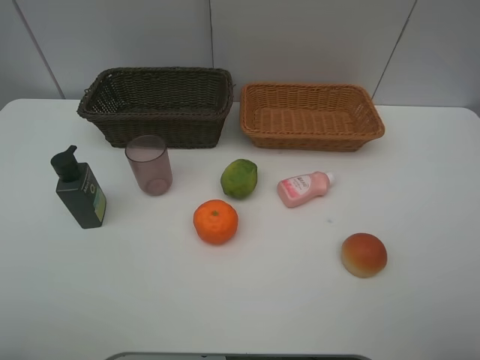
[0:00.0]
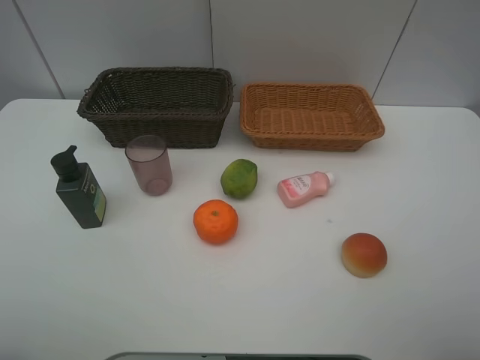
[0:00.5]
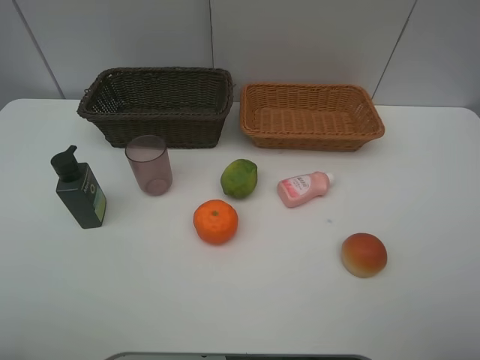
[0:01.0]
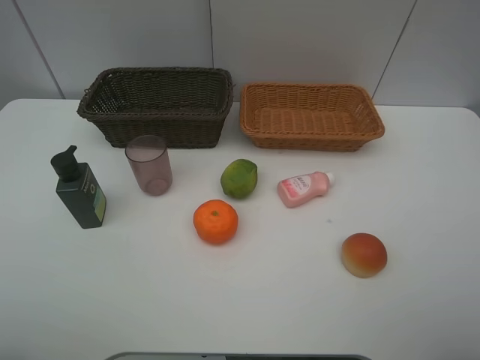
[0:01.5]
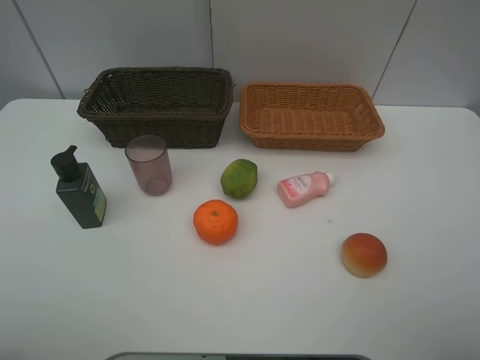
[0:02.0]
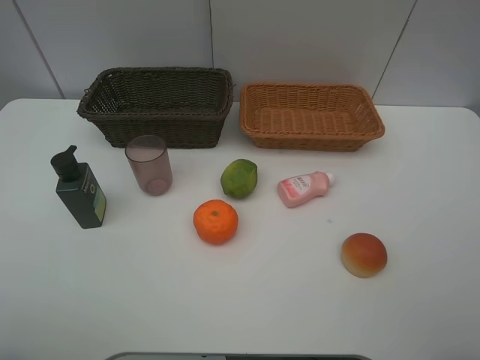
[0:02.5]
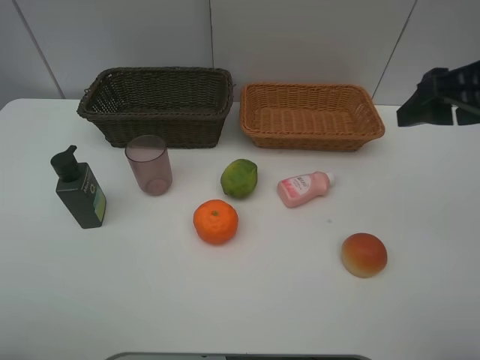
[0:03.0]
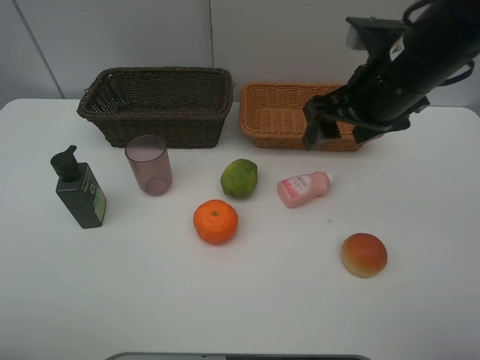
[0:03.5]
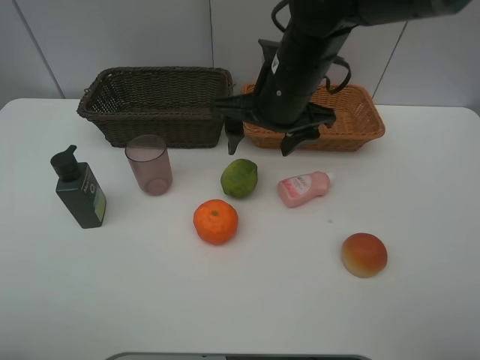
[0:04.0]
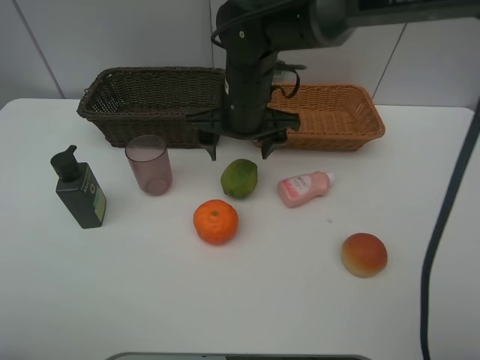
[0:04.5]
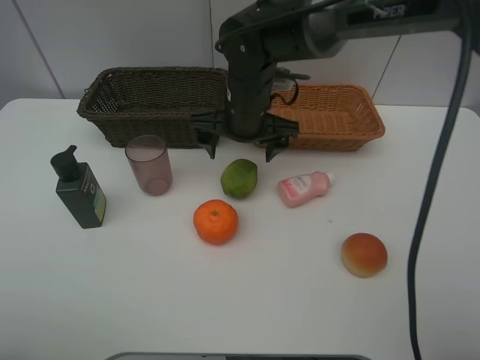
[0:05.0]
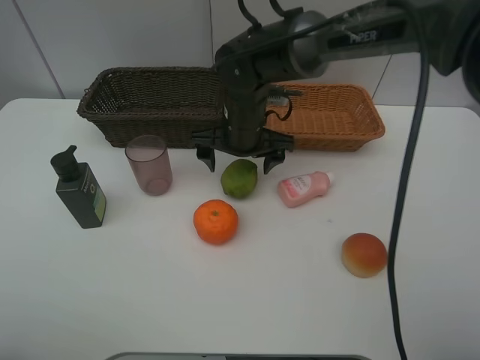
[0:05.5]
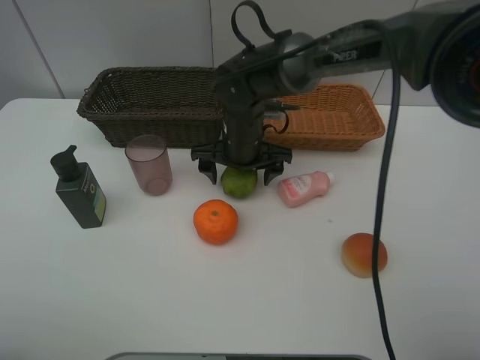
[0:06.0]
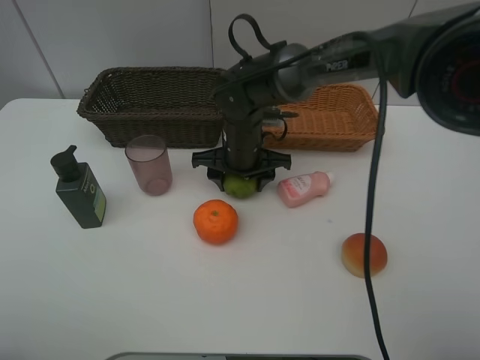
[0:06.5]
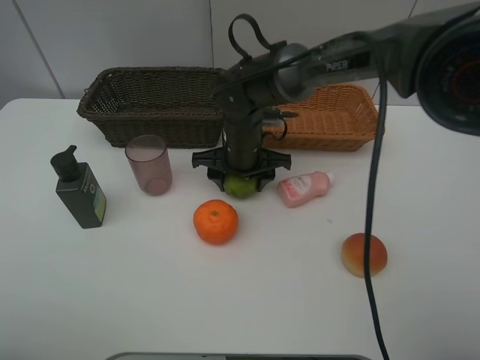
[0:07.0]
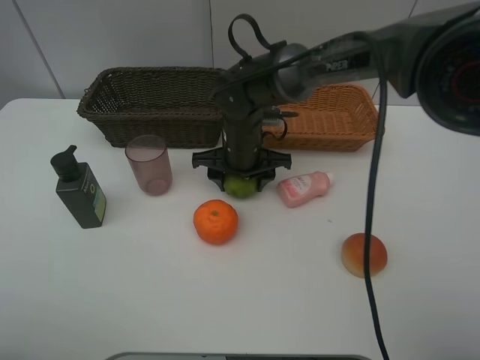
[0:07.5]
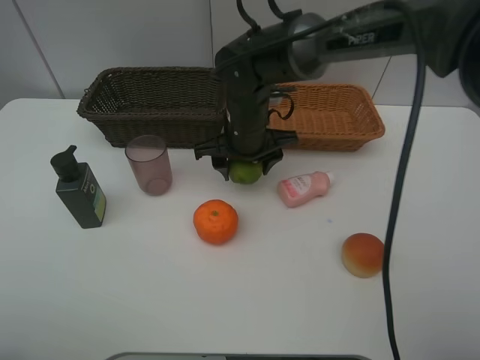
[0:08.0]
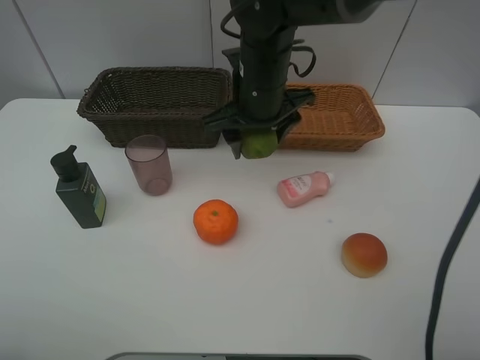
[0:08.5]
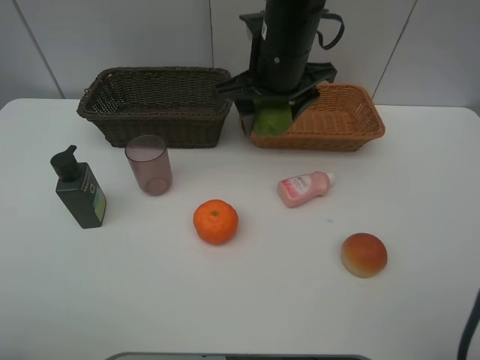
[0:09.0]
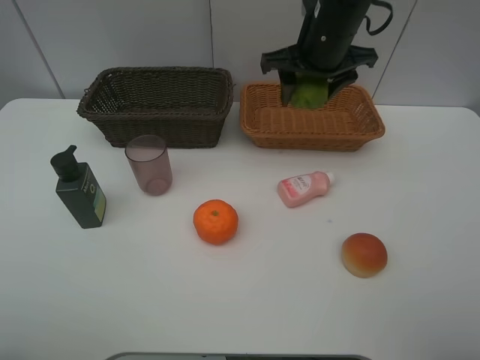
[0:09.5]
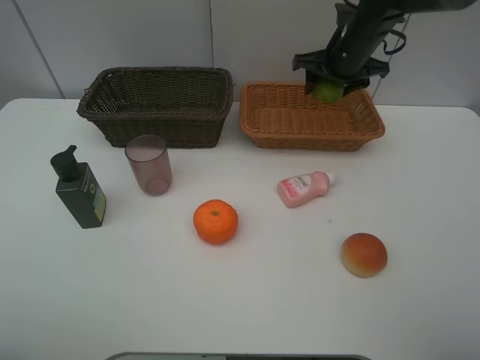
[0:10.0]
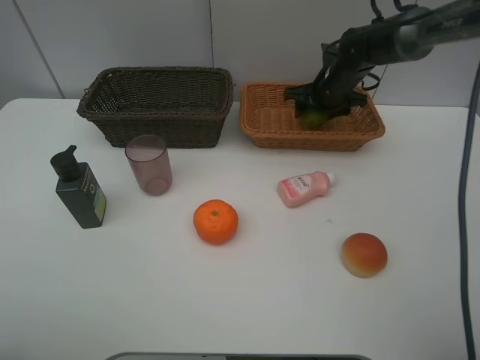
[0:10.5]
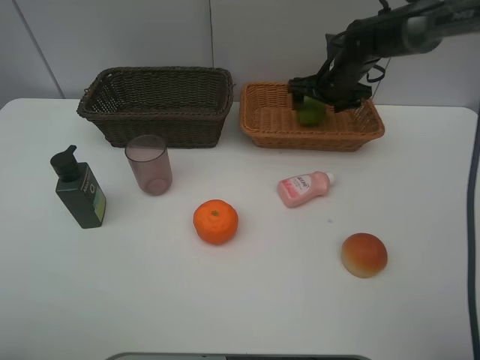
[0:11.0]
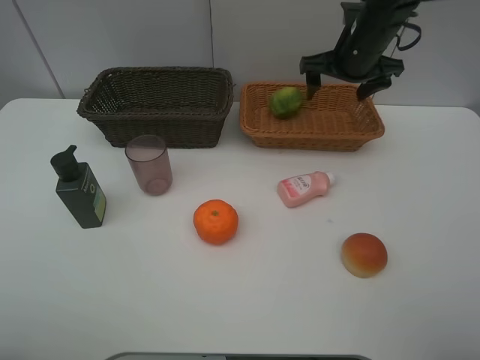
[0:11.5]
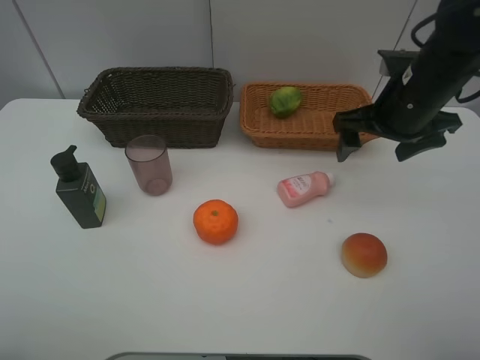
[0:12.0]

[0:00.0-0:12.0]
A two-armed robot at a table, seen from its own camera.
Task of the whole recording: place multiple objects separately in different baskets.
0:00.0 to 0:02.0: Neither gripper changes place.
0:02.0 to 0:04.0: The right gripper shifts approximately 40 cm forward and to the left.
0:04.0 to 0:06.0: The right gripper heads downward and to the left, covering approximately 10 cm.
0:06.0 to 0:08.0: The right gripper closes up.
0:08.0 to 0:10.0: The right gripper travels to the right, forward and upward by roughly 20 cm.
0:10.0 to 0:12.0: The right gripper travels backward by approximately 15 cm, and opens.

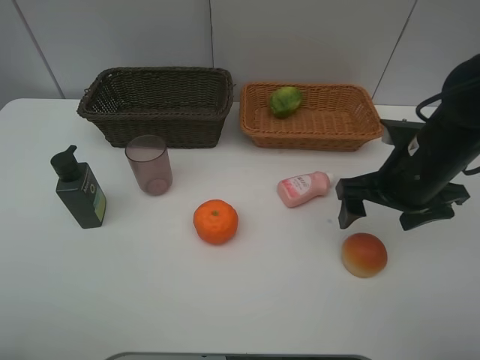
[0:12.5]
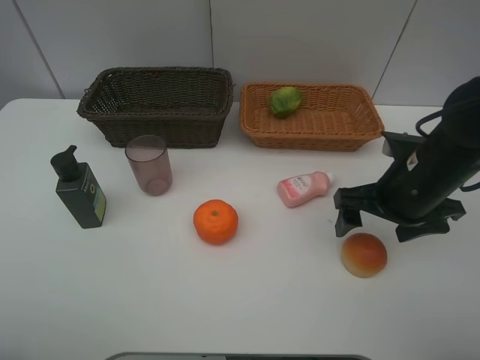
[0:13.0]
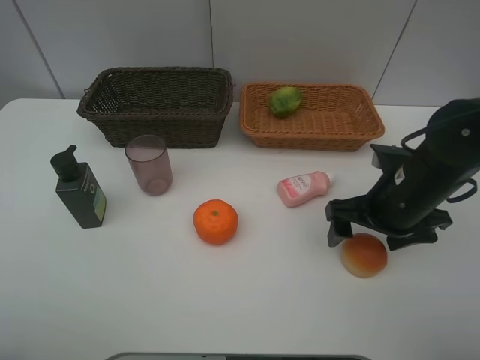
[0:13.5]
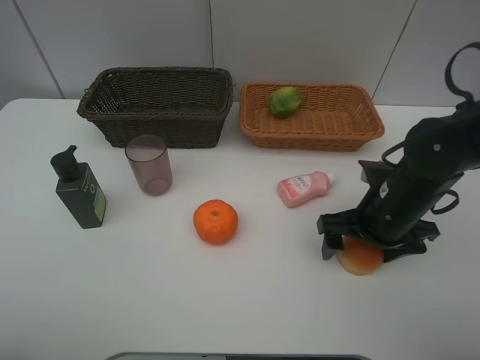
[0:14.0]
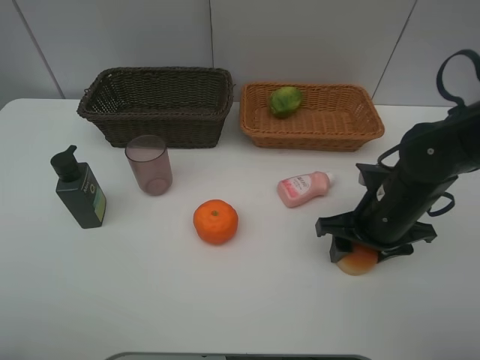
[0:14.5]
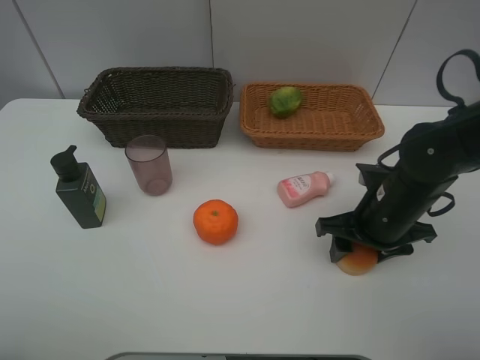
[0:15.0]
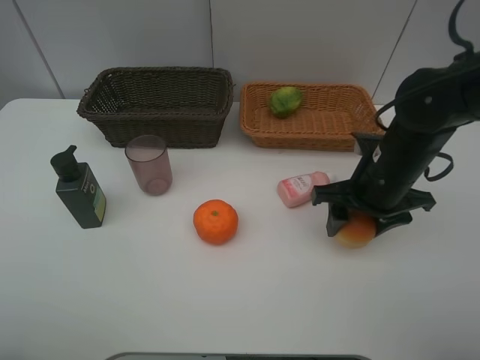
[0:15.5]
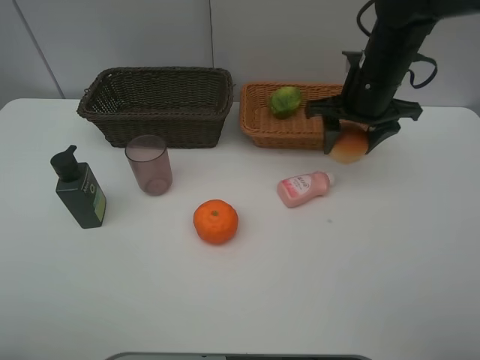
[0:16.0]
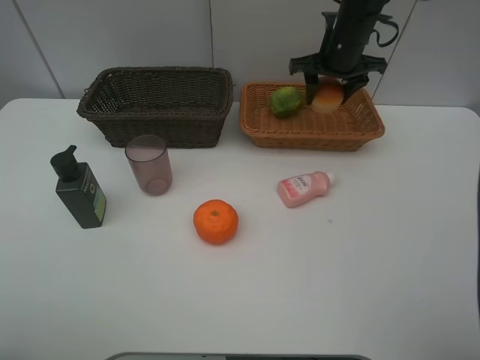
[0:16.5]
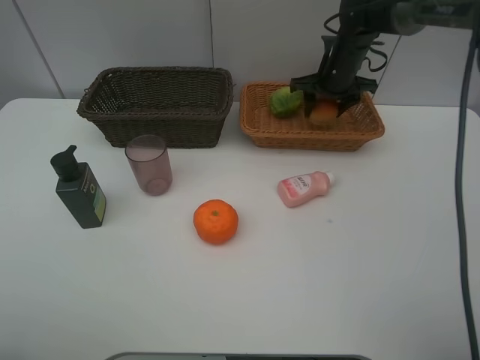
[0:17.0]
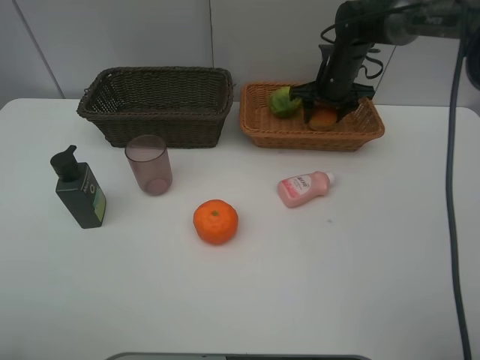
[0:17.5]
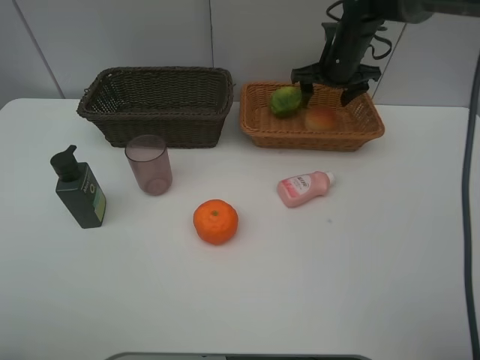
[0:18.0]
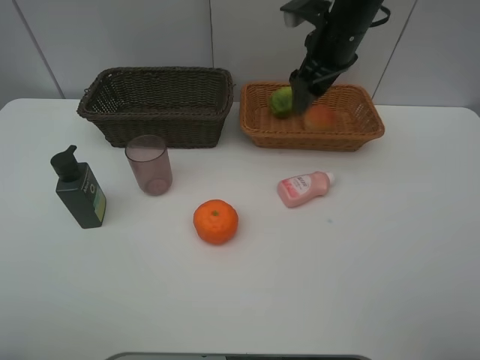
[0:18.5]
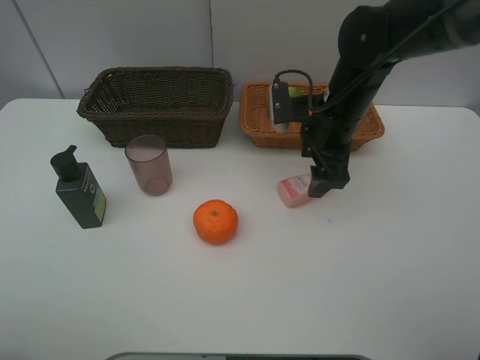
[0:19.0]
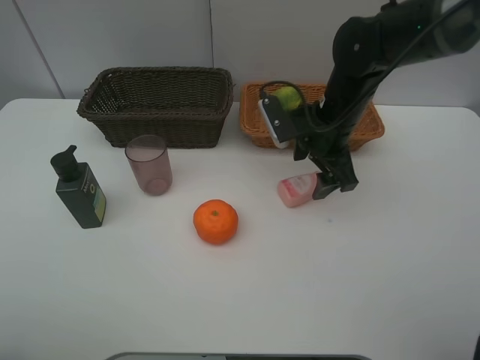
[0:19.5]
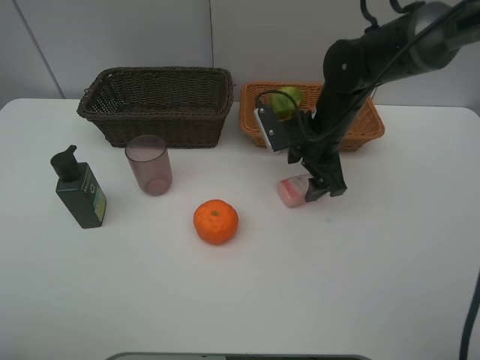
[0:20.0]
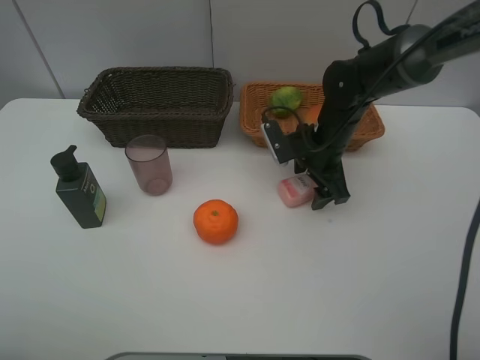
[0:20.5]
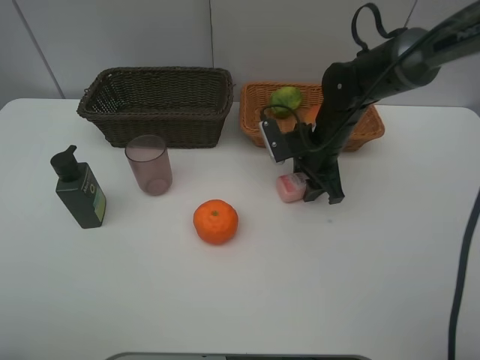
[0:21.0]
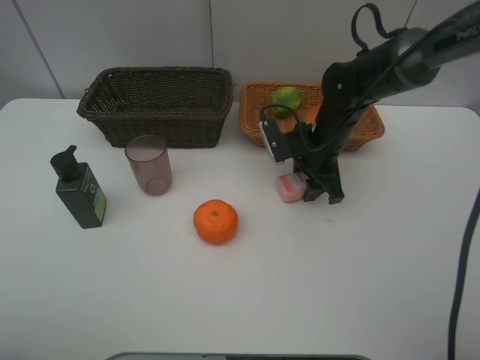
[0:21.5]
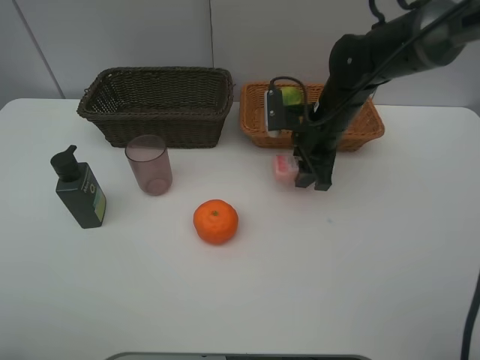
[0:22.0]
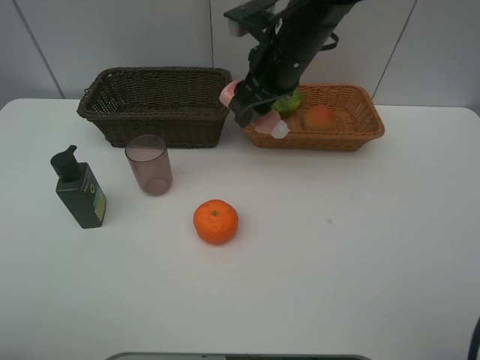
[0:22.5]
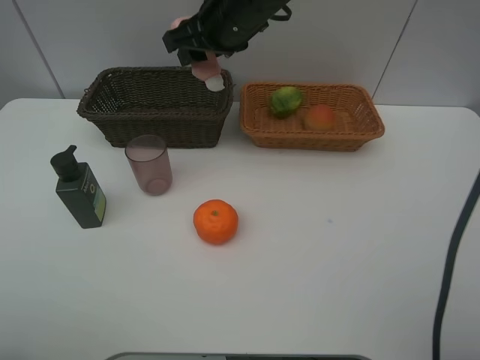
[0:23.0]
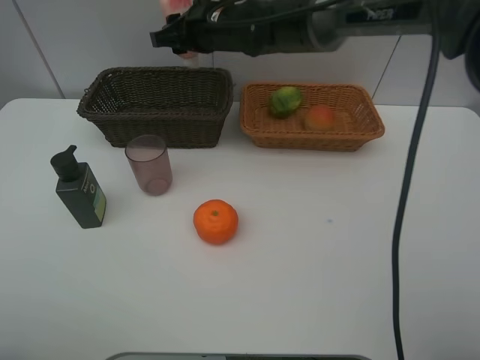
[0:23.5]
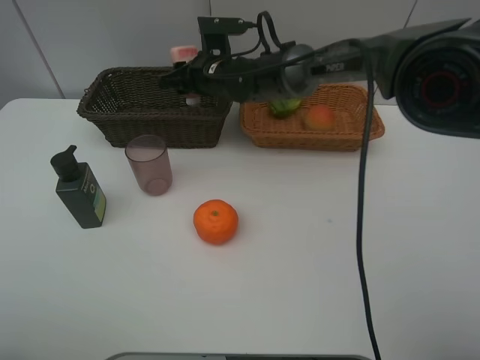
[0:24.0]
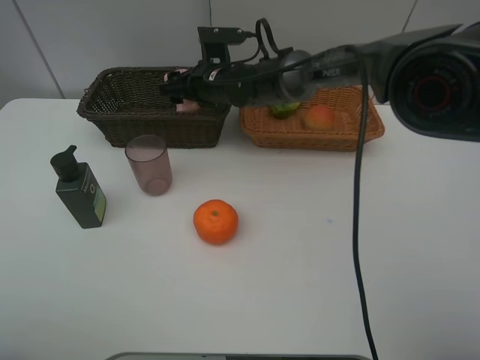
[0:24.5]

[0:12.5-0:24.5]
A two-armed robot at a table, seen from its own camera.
Task of the whole recording: place multiple objects separately in different baskets.
0:12.5 to 0:14.5: The right gripper heads downward, covering roughly 5 cm, and closes its fingers.
0:14.5 to 0:16.5: The right gripper is displaced forward and upward by approximately 25 cm.
0:16.5 to 0:18.5: The right gripper moves backward, roughly 5 cm, moves approximately 5 cm downward and comes back, and opens its fingers.
0:18.5 to 0:20.5: The right gripper shifts roughly 15 cm downward.
0:20.5 to 0:22.5: The right gripper goes about 15 cm upward and to the left, and closes.
0:22.5 to 0:24.5: The right gripper is displaced downward, to the left and forward by about 15 cm, and opens its fingers.

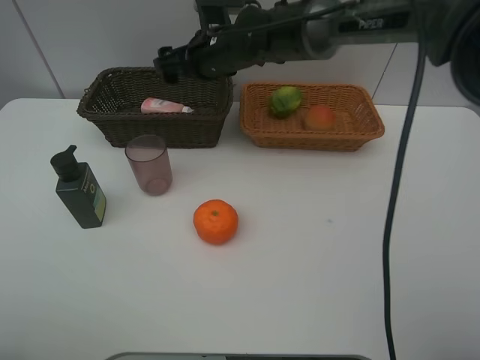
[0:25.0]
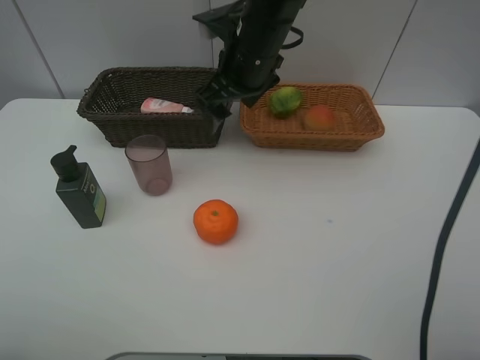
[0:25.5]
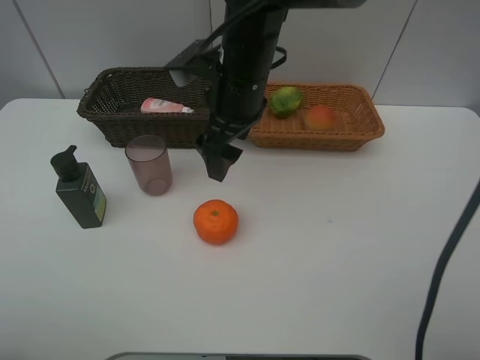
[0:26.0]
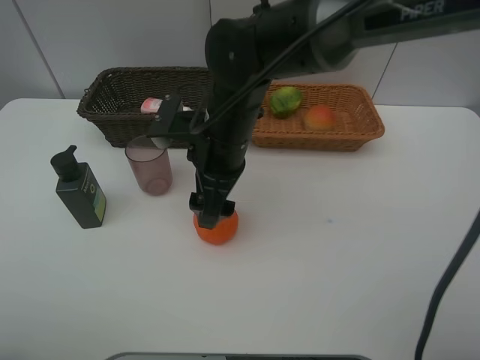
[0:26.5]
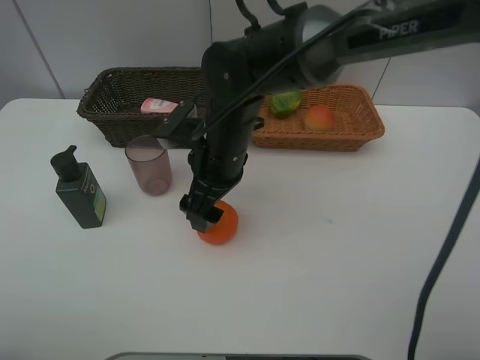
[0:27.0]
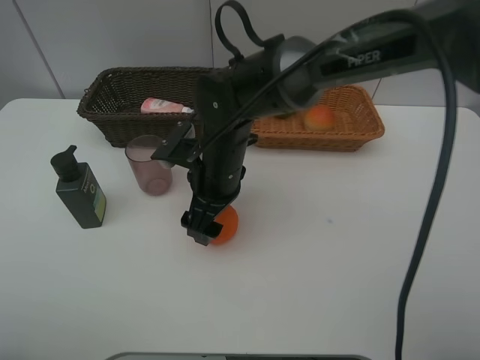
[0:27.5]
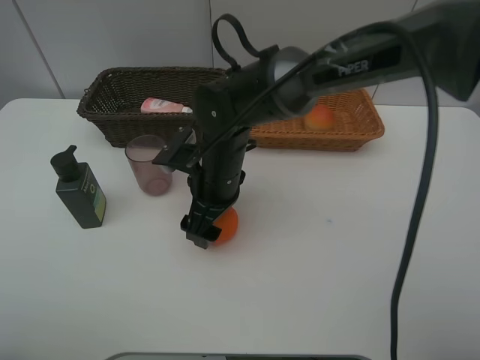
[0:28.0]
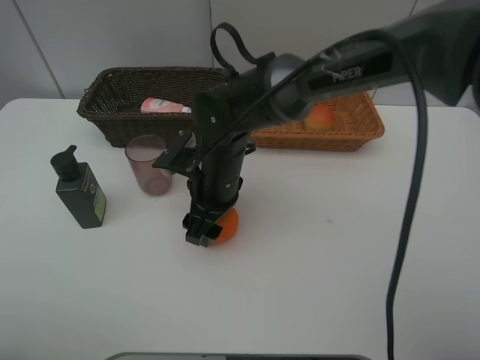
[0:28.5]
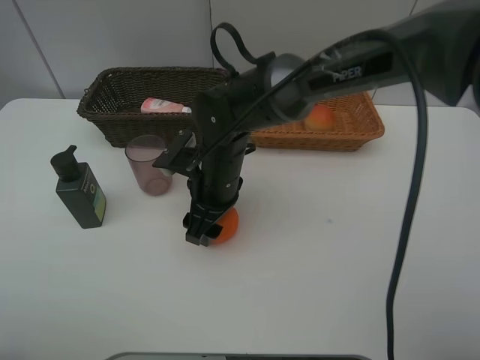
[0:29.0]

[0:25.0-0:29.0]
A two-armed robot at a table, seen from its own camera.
Task of the whole recording: place multiple objects separately in different baskets.
0:25.0 to 0:27.0: The right gripper heads backward, covering about 15 cm.
0:27.0 to 0:29.0: The right gripper closes its fingers.
